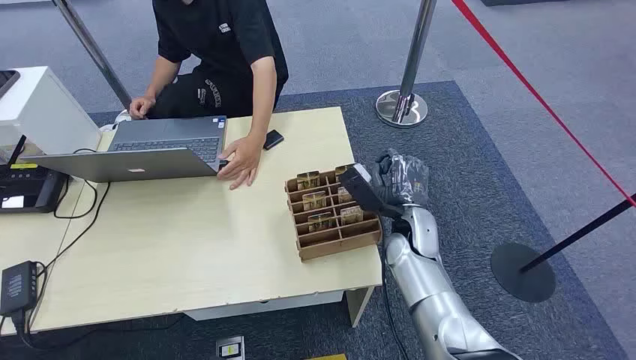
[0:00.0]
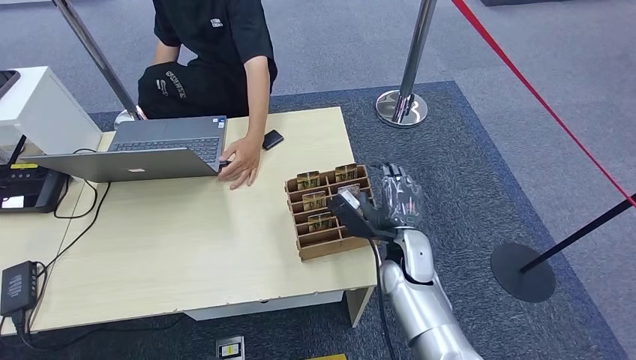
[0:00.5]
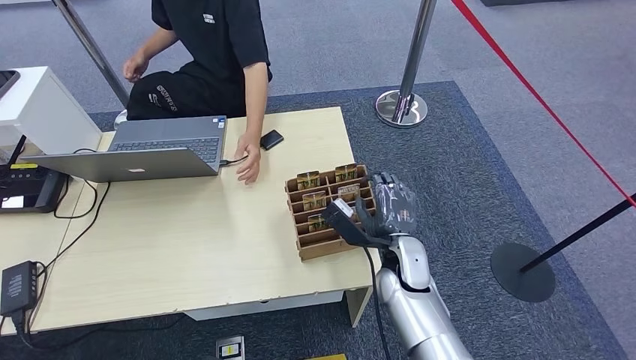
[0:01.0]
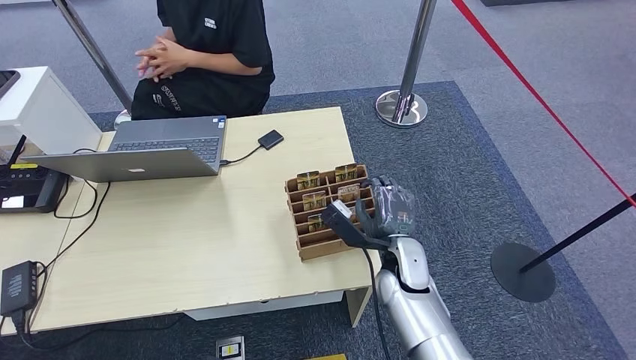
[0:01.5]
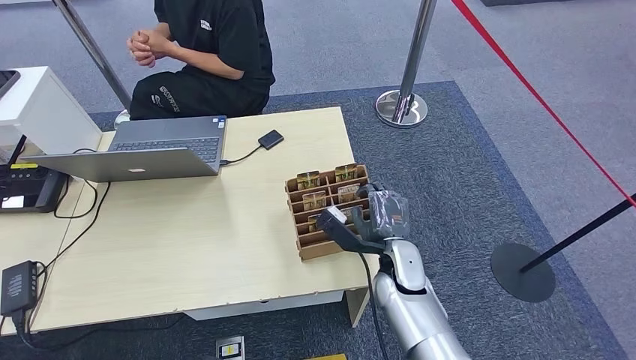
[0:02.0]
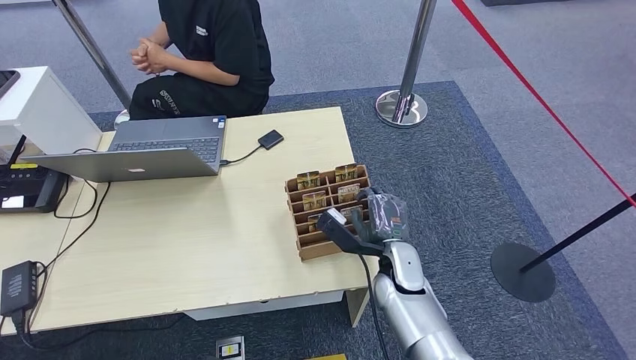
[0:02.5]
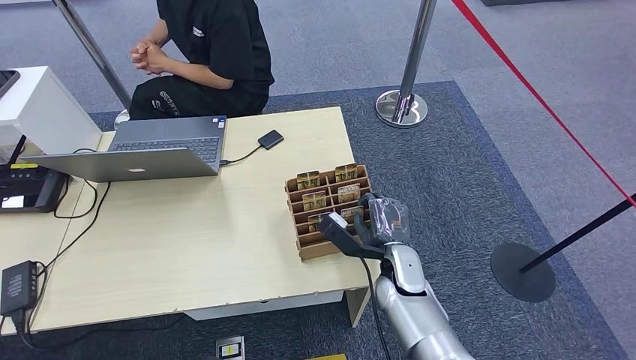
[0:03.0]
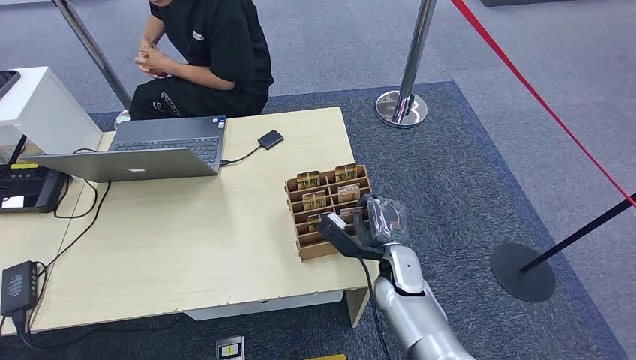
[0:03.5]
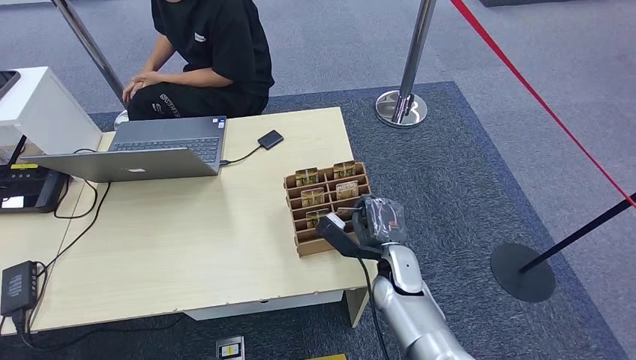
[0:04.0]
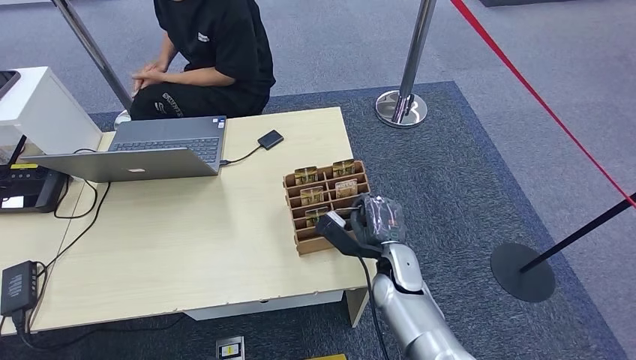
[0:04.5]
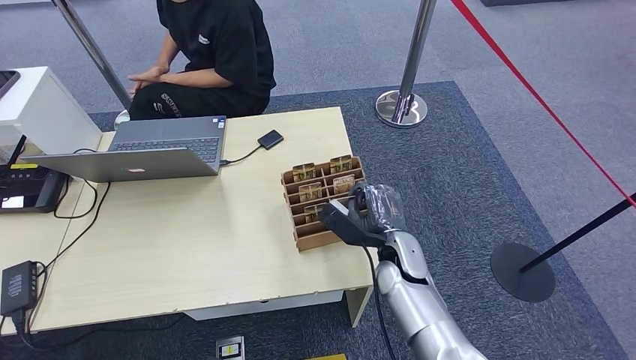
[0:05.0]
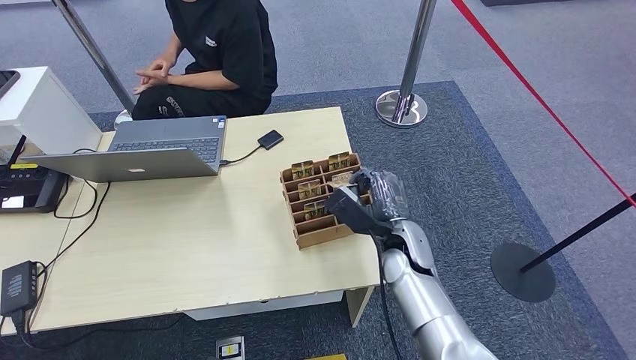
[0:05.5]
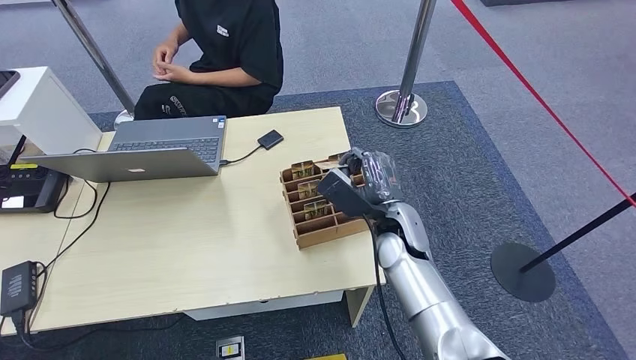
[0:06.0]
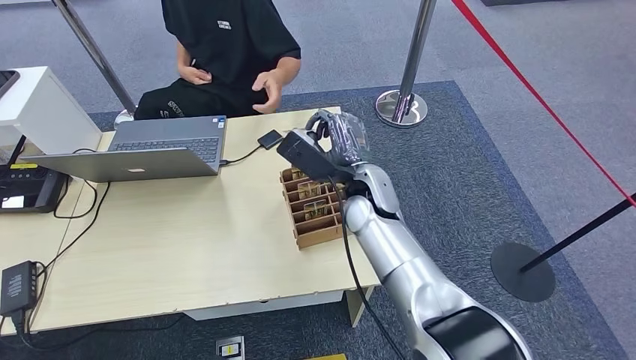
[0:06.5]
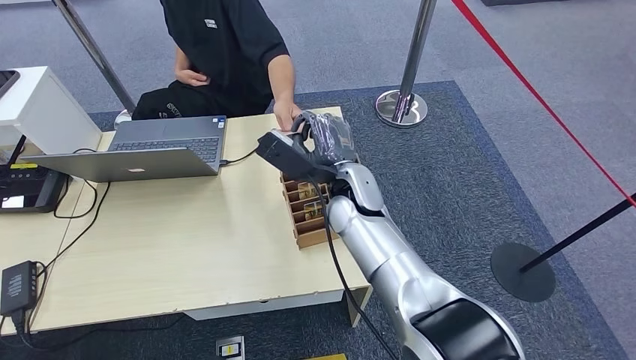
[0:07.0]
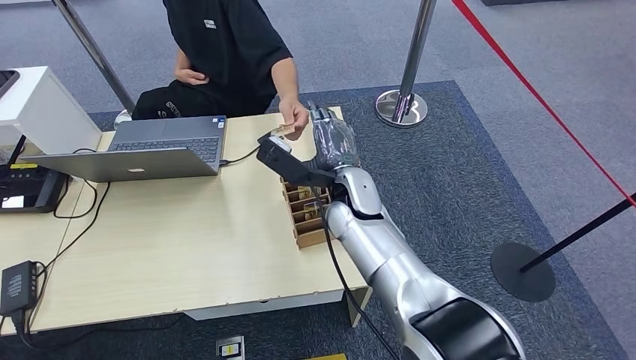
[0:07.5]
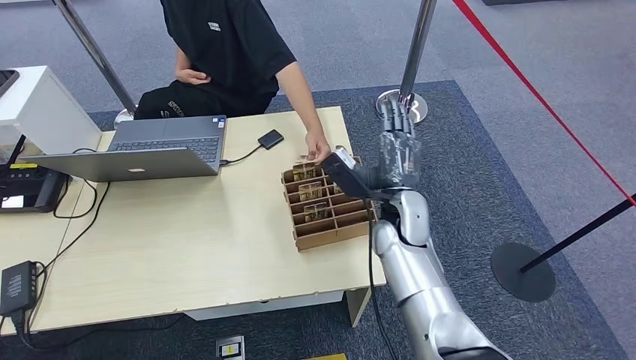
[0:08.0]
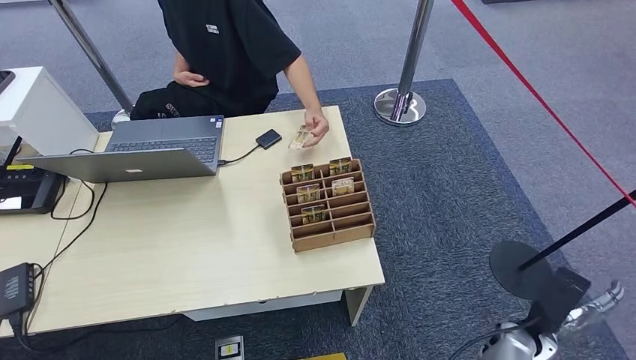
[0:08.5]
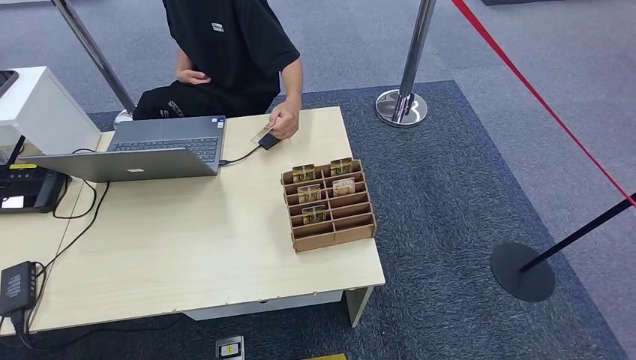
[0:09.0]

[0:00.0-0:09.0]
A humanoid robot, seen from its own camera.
Step, 0:00.0 to 0:05.0: Pick up the key card from the card box.
Step, 0:05.5 to 0:09.0: Hand the key card to the target.
0:02.0 to 0:04.5: The hands stay close to where they were, moving slightly.
0:04.5 to 0:07.0: The right hand moves upward, to the left and forward, approximately 20 cm.
0:07.0 to 0:09.0: The right hand heads backward, downward and to the right, covering about 50 cm.

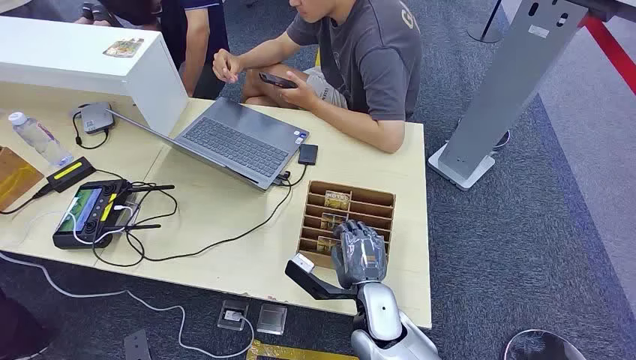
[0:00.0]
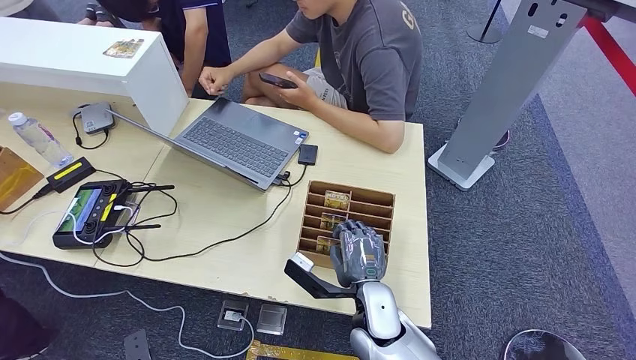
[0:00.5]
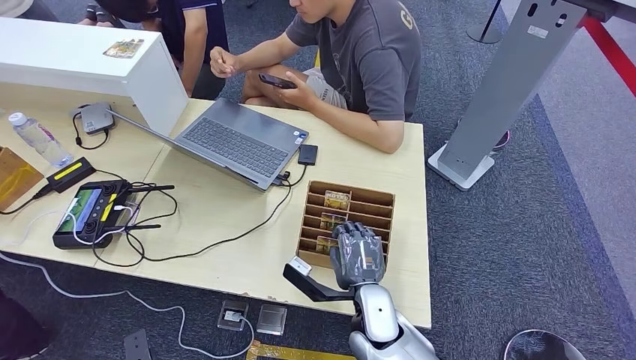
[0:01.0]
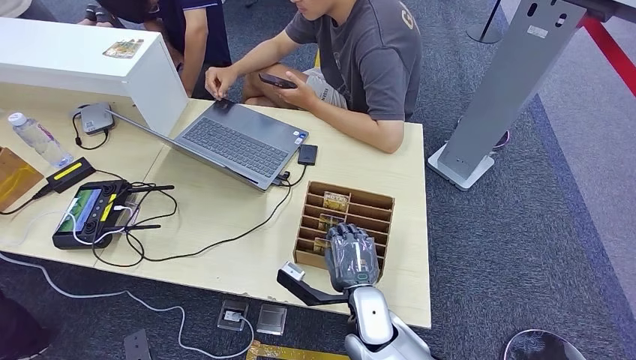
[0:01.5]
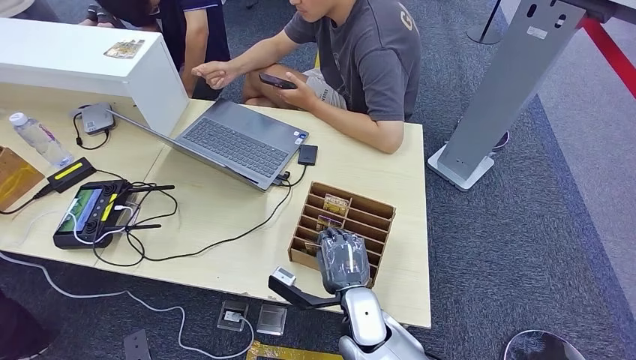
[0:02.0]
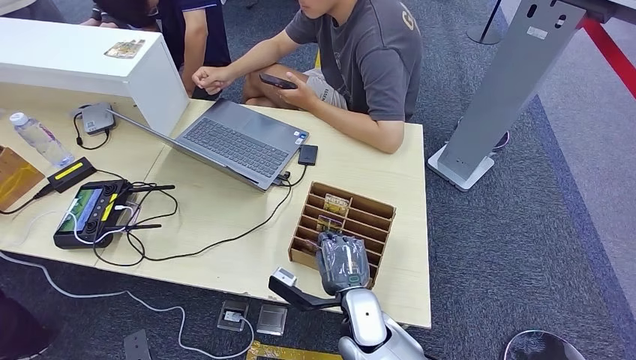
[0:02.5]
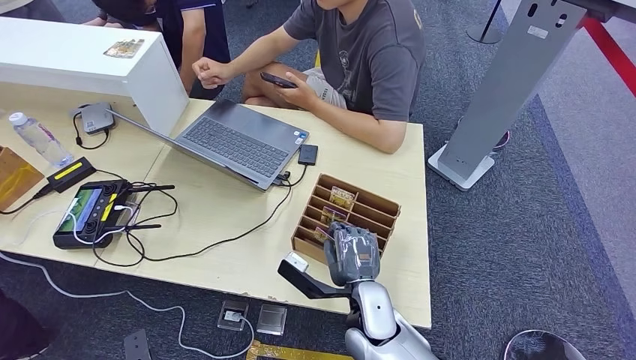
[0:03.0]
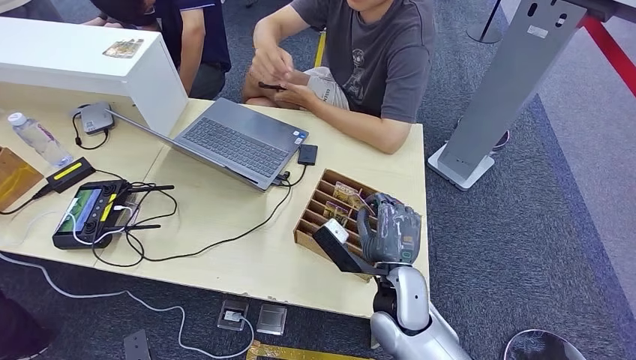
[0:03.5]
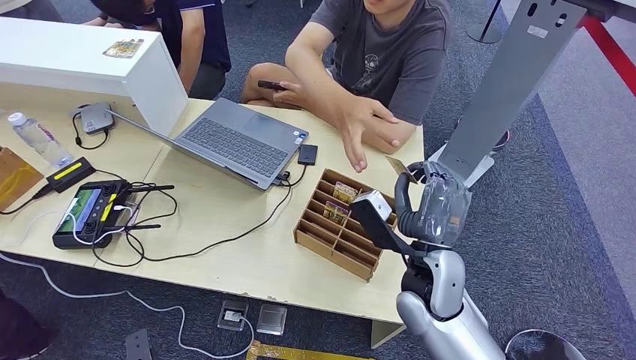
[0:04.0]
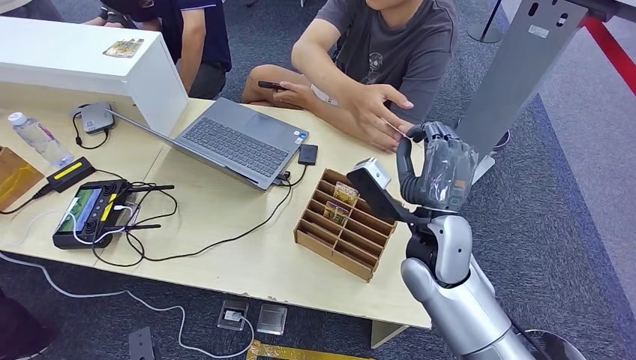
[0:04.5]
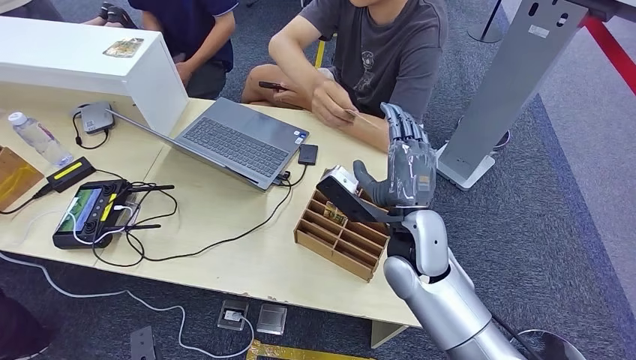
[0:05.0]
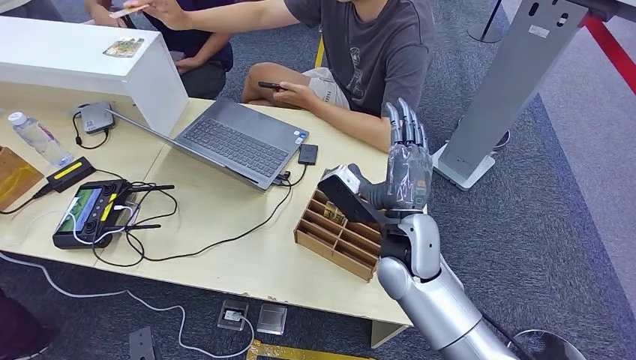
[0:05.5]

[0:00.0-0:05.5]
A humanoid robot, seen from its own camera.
Step, 0:00.0 to 0:03.0: Pick up the key card from the card box.
Step, 0:03.5 to 0:05.5: Hand the key card to the target.
0:02.0 to 0:03.5: The right hand travels upward and to the right by some 10 cm.
0:03.5 to 0:05.5: The right hand shifts about 10 cm upward and forward.

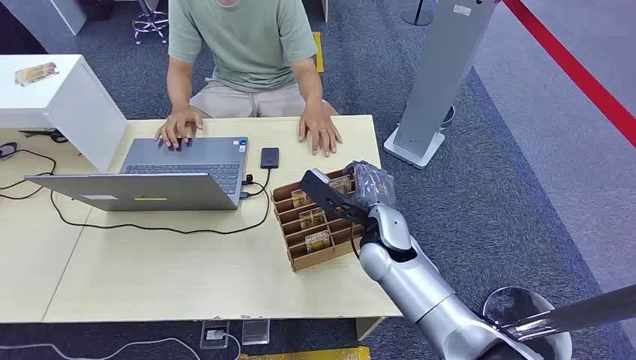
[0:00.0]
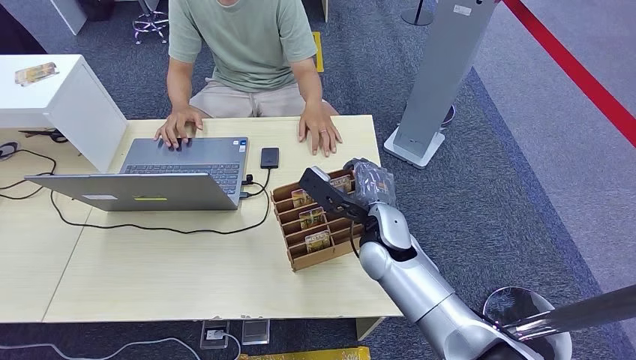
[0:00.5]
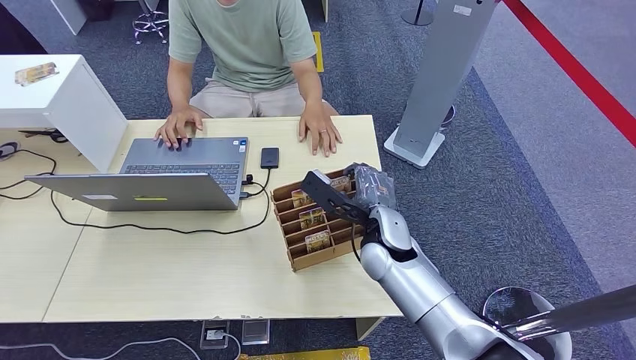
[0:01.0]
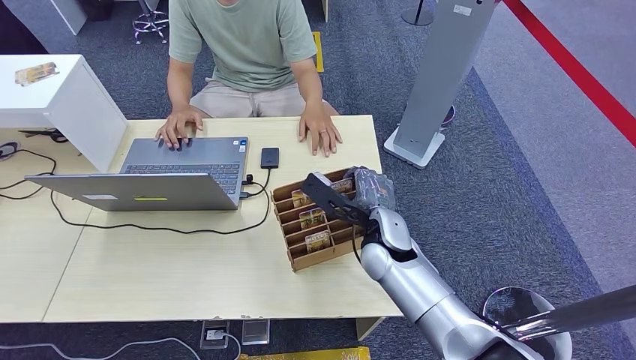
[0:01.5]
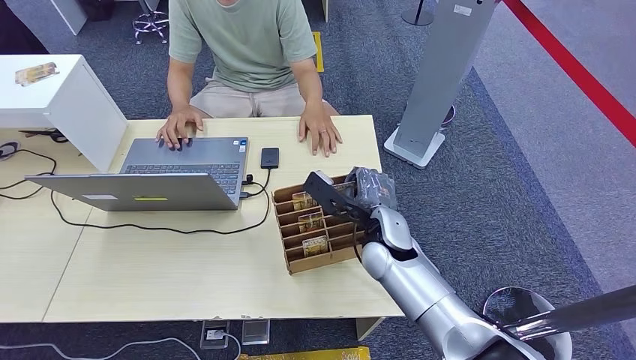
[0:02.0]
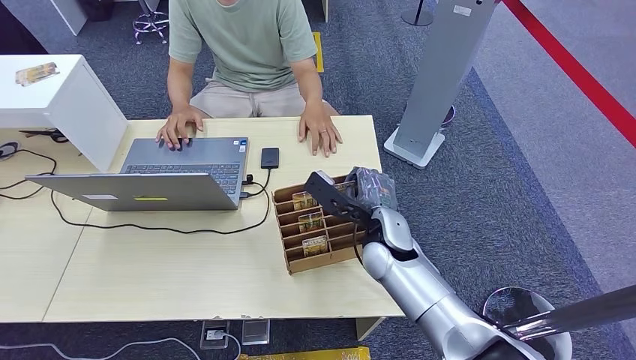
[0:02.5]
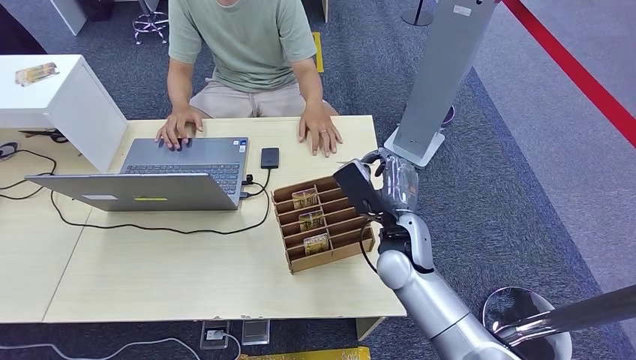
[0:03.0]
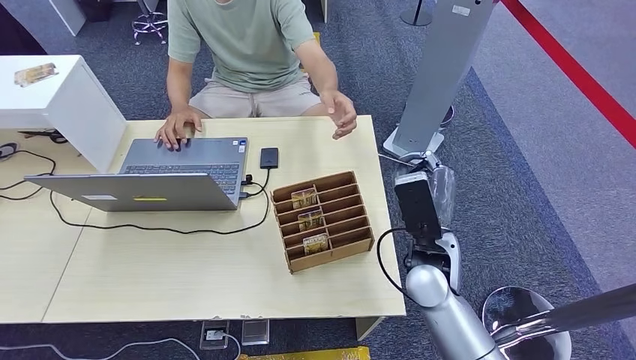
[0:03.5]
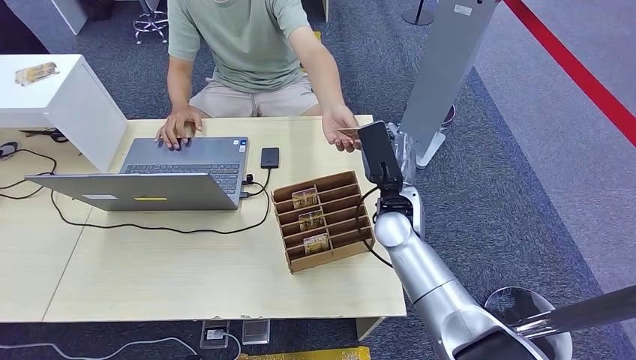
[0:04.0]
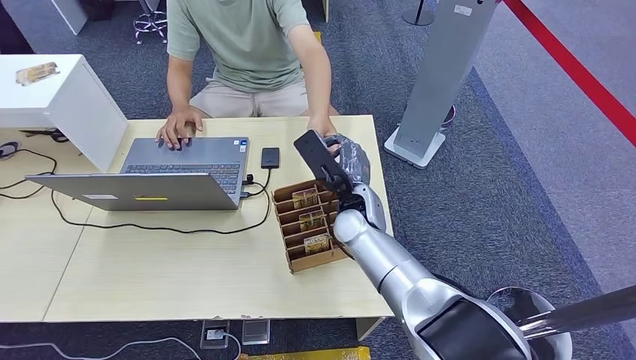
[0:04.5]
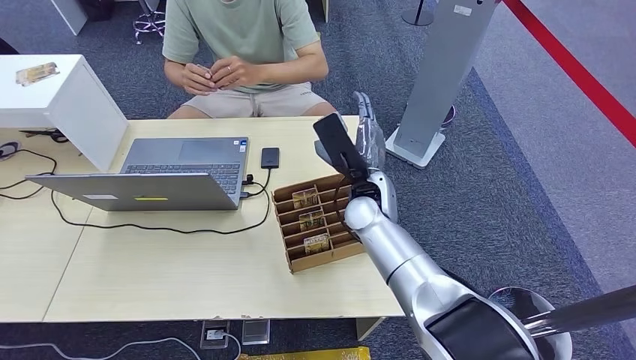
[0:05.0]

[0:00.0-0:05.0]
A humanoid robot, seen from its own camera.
Step, 0:00.0 to 0:03.0: Pick up the key card from the card box.
Step, 0:04.0 to 0:05.0: Hand the key card to the target.
0:02.5 to 0:05.0: The right hand shifts by about 5 cm.
